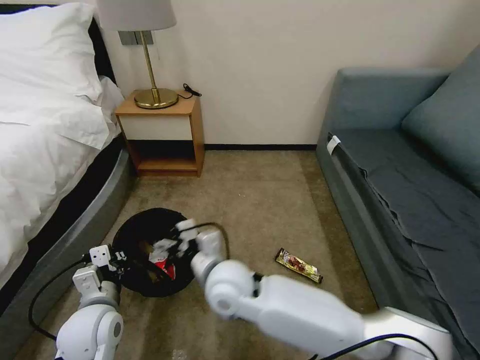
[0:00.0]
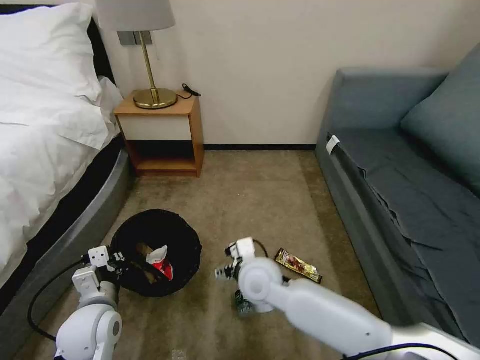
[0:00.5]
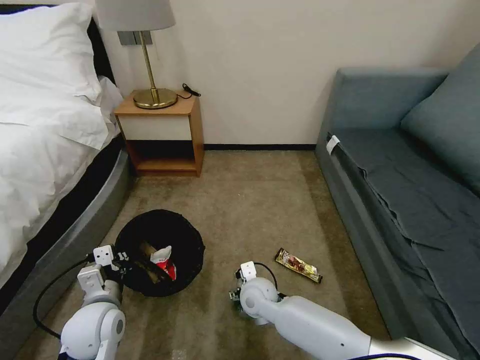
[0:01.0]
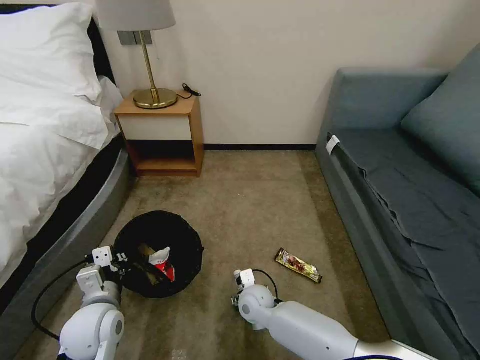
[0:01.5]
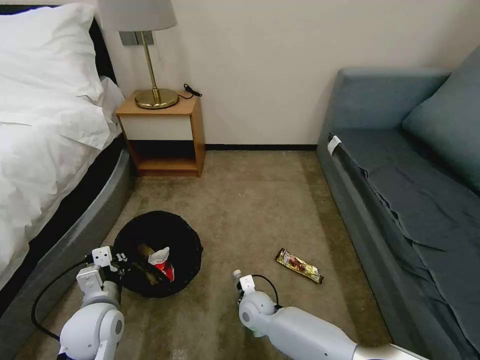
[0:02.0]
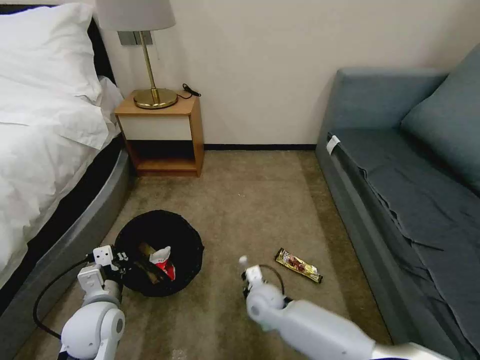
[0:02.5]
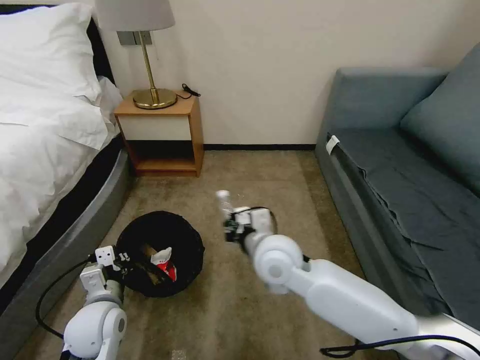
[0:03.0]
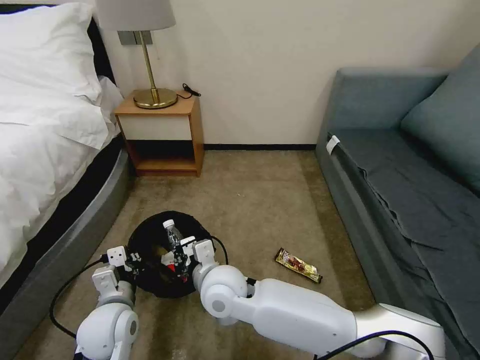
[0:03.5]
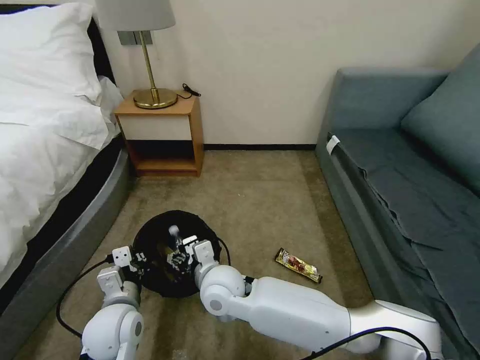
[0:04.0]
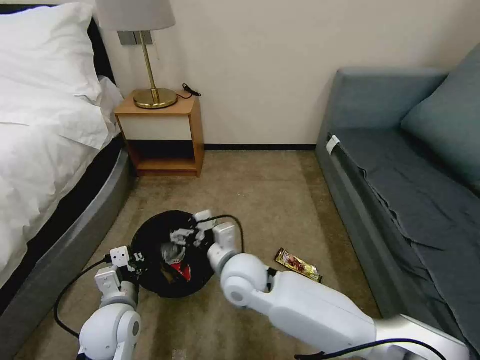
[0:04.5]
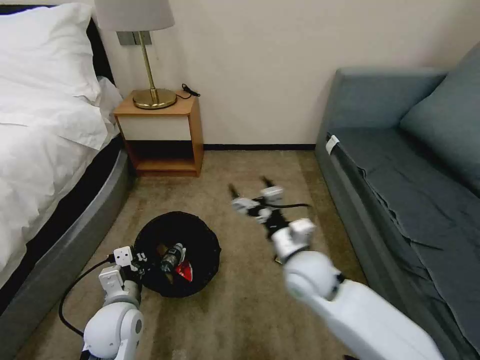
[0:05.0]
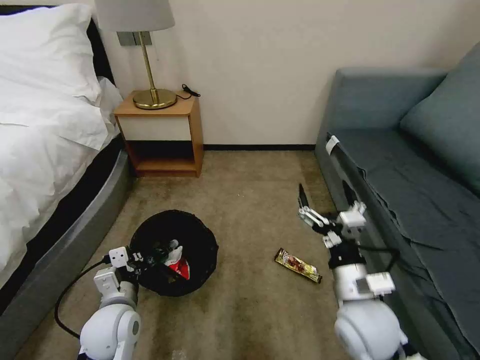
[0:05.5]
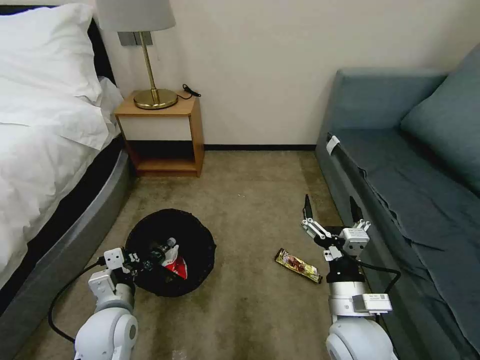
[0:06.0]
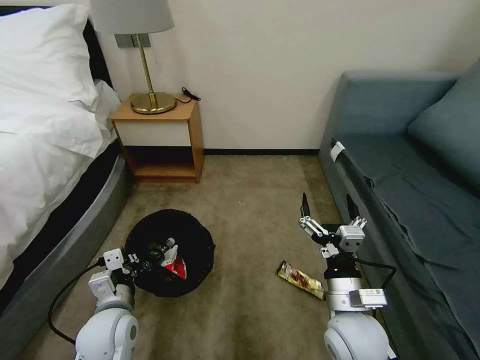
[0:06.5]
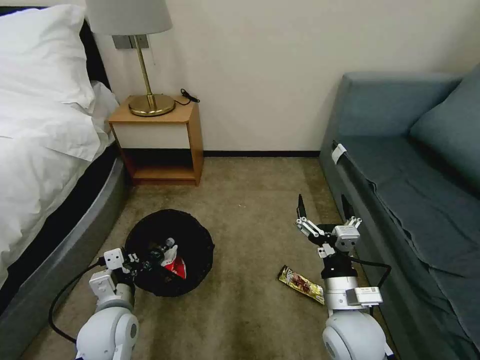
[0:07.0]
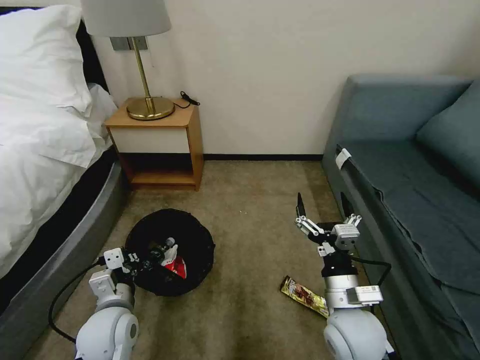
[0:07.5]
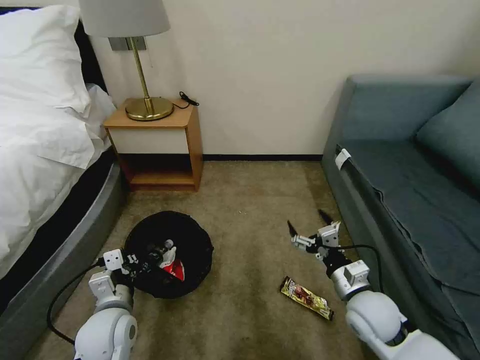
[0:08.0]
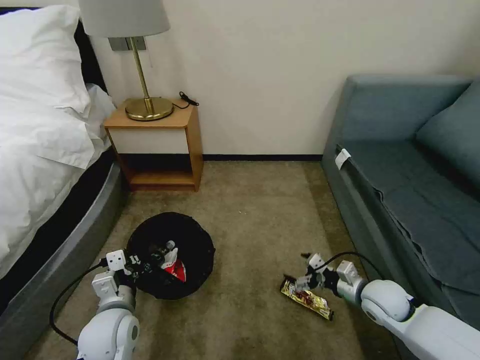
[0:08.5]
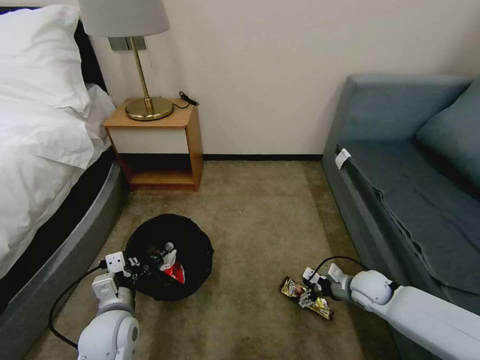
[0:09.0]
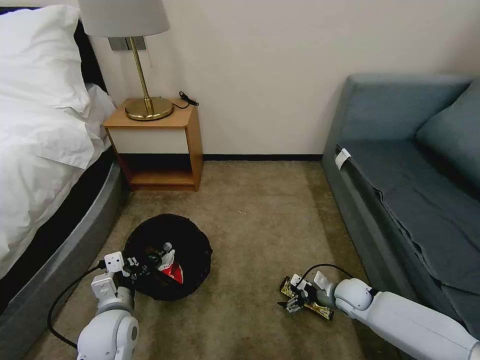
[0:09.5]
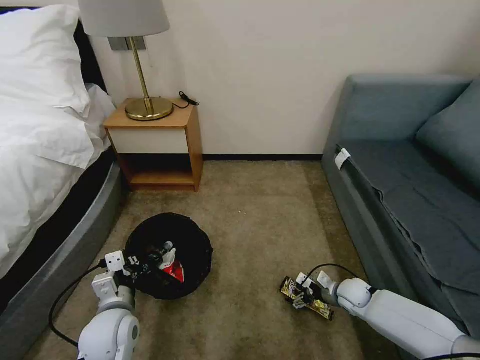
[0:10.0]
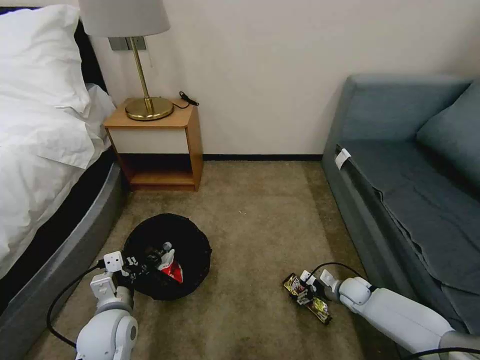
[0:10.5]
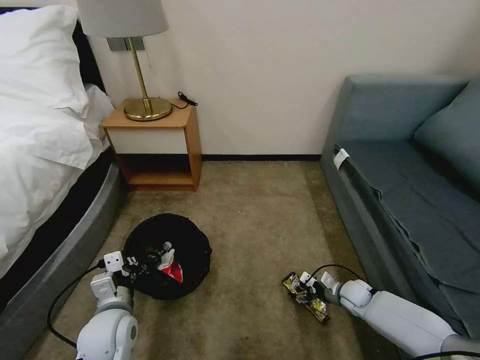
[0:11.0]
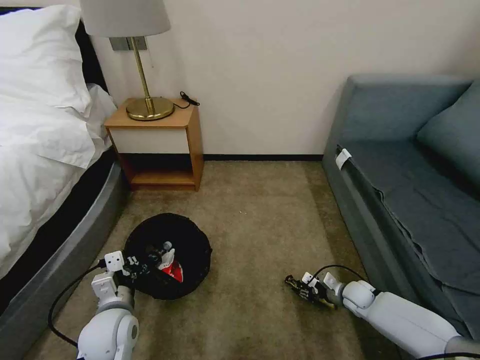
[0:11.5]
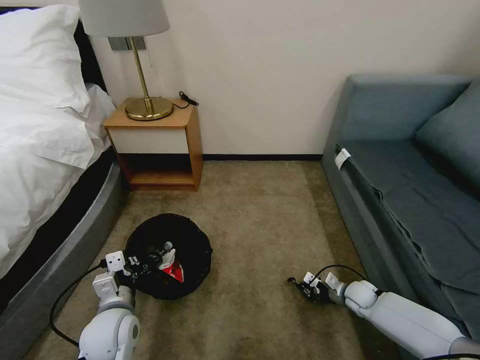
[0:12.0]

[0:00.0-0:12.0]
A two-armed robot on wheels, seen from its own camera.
Task of the whole recording: Pick up the trash bin, then pick up the garbage on the floor and place it into the trash bin.
0:00.0 to 0:02.0: The right gripper shifts some 20 cm downward.
0:02.0 to 0:04.0: The right gripper travels upward and to the left by approximately 20 cm, and closes, then opens again.
0:04.0 to 0:06.0: The right gripper moves to the right and backward, some 25 cm.
0:06.0 to 0:08.0: The right gripper moves to the right, forward and downward, some 10 cm.
0:08.0 to 0:10.0: The right gripper shifts approximately 20 cm downward, forward and to the right.
0:10.0 to 0:12.0: The right gripper closes.

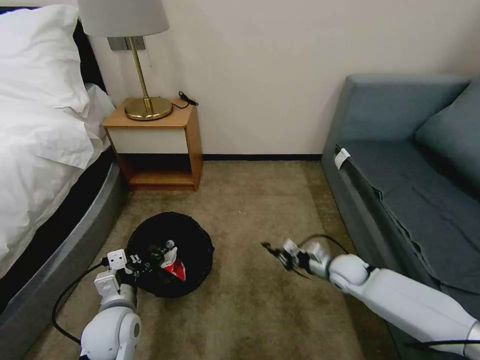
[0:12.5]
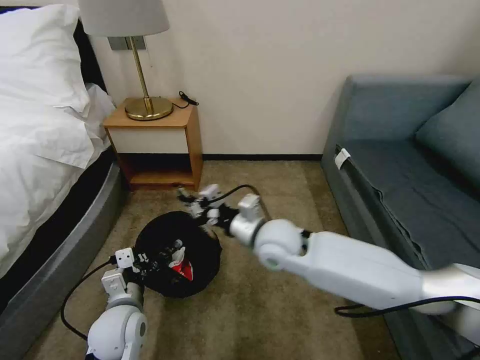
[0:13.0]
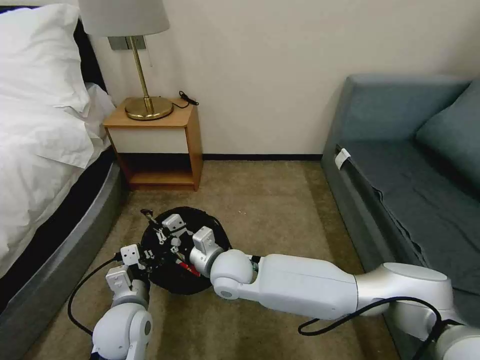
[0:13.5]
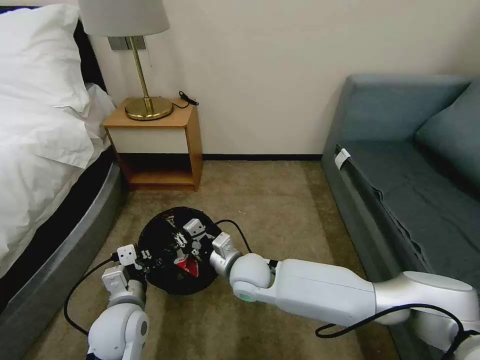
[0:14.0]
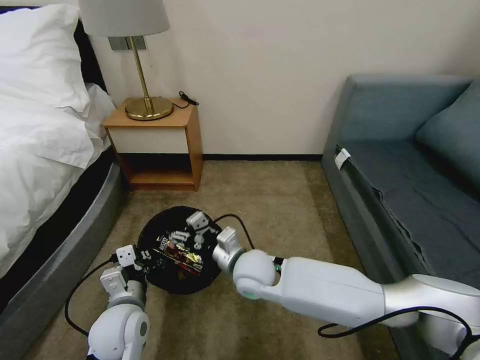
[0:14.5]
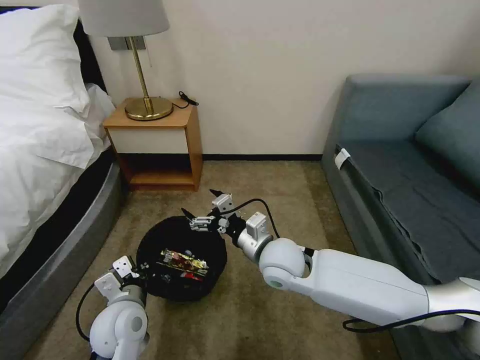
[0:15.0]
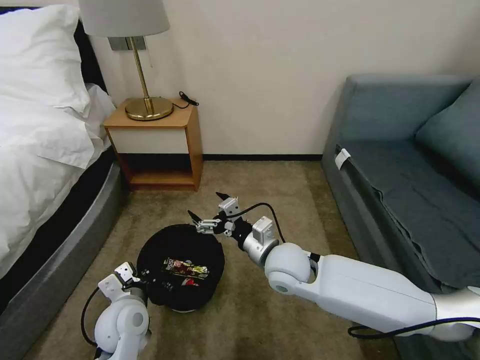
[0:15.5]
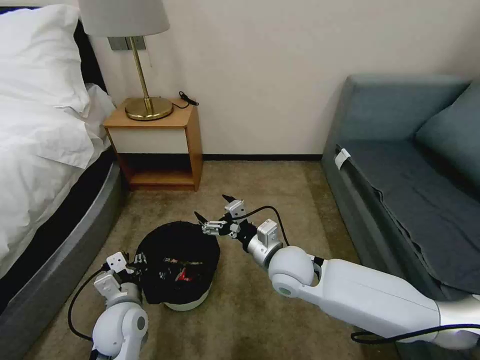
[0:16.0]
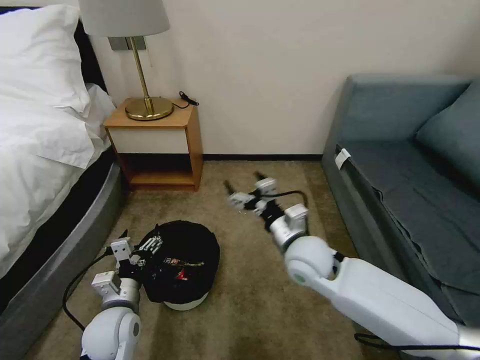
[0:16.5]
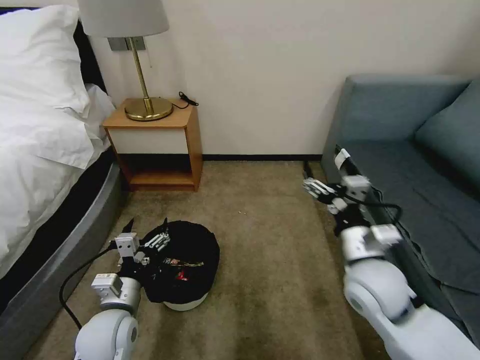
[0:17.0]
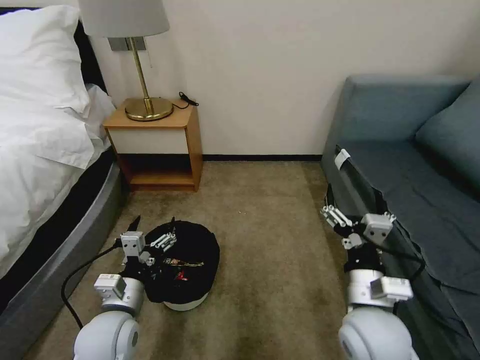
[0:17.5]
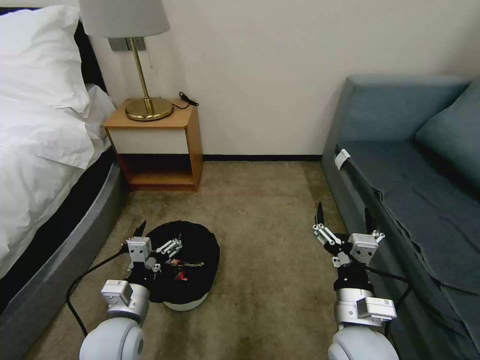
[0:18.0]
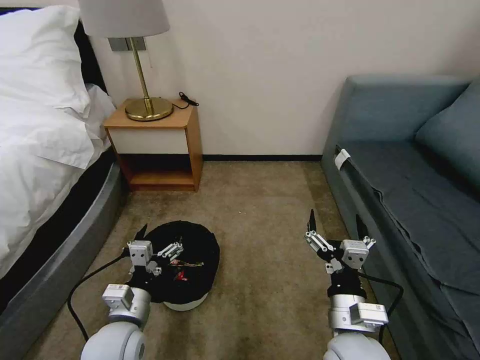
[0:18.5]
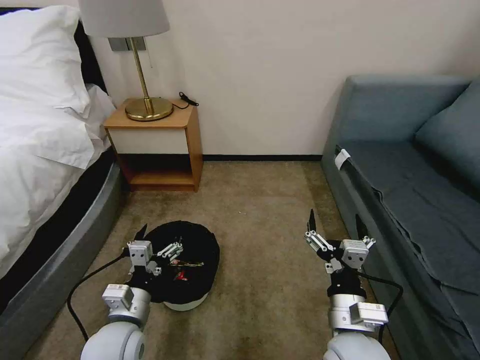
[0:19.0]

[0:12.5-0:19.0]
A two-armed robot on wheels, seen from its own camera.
Task of the whole recording: Pick up the trash bin, then pick up the garbage on the floor and place it into the trash bin.
0:12.5 to 0:14.5: The right gripper heads to the left, covering approximately 25 cm, and opens up.
0:14.5 to 0:17.0: The left gripper opens up. The right gripper goes roughly 20 cm to the right and upward.
0:17.0 to 0:19.0: The right gripper shifts roughly 15 cm backward and downward.

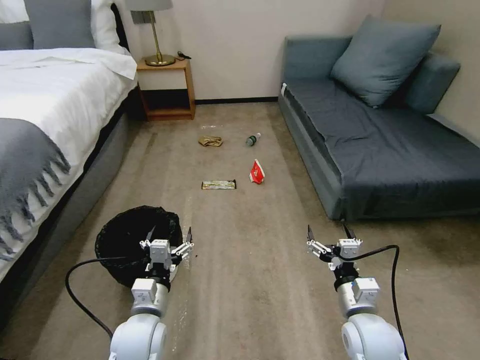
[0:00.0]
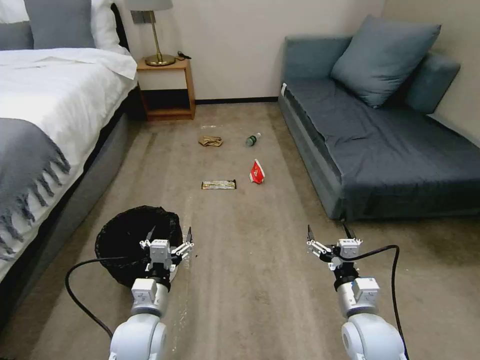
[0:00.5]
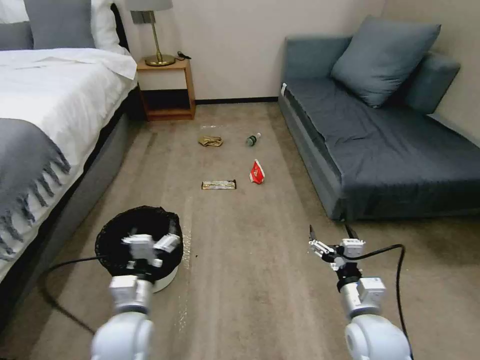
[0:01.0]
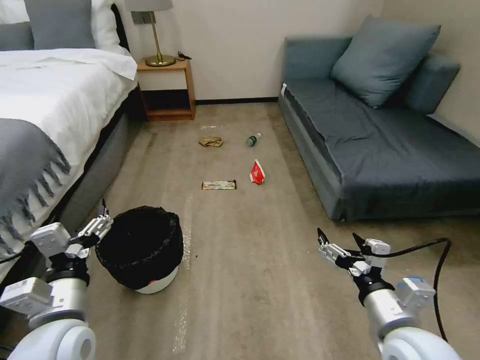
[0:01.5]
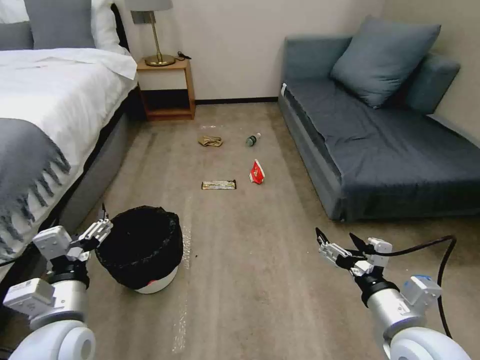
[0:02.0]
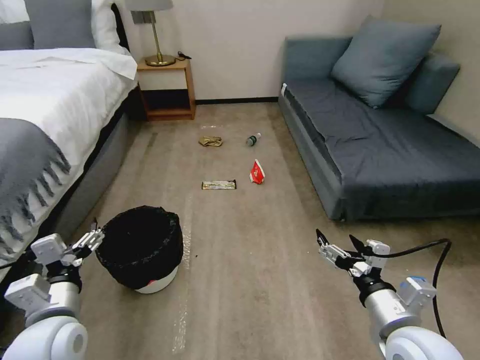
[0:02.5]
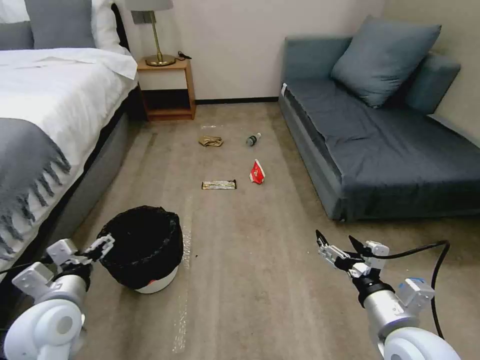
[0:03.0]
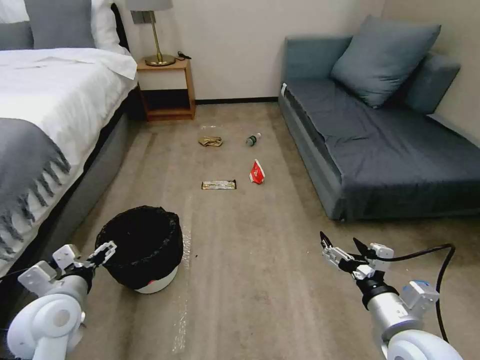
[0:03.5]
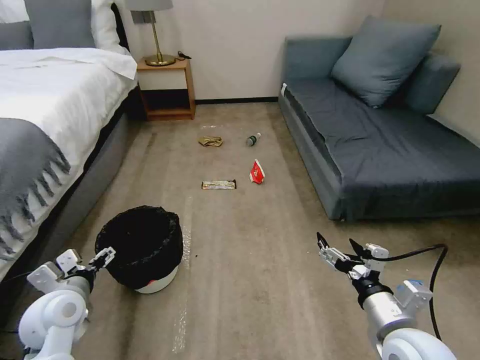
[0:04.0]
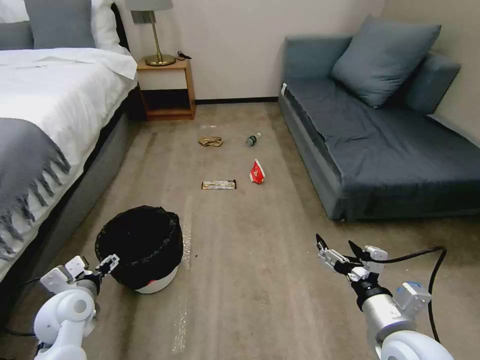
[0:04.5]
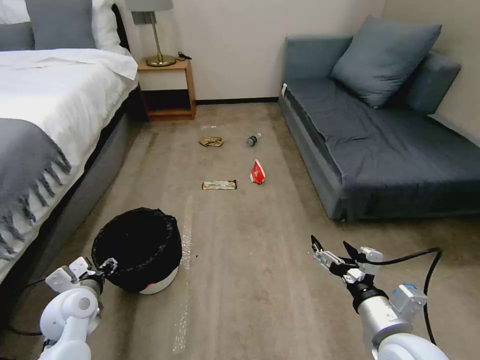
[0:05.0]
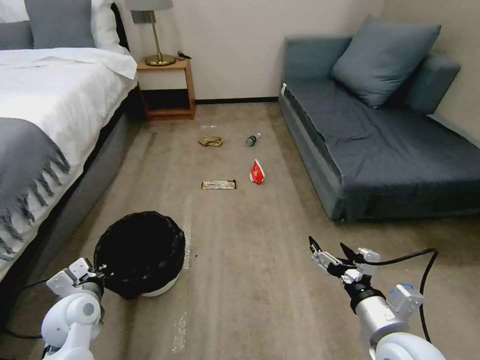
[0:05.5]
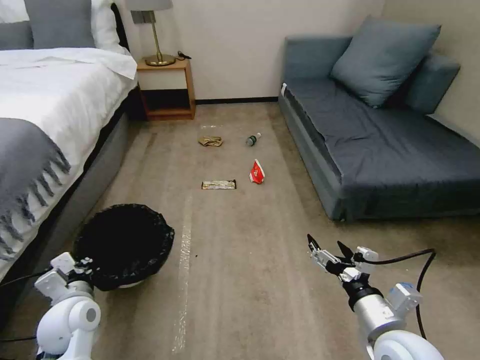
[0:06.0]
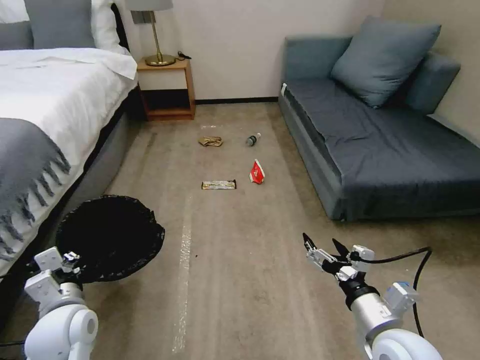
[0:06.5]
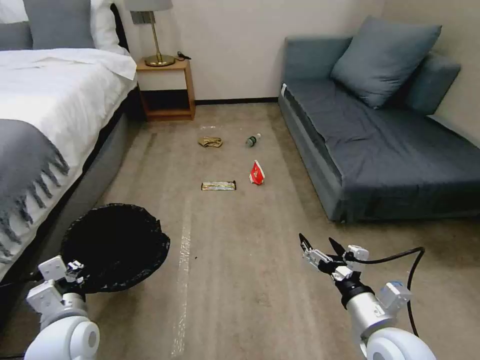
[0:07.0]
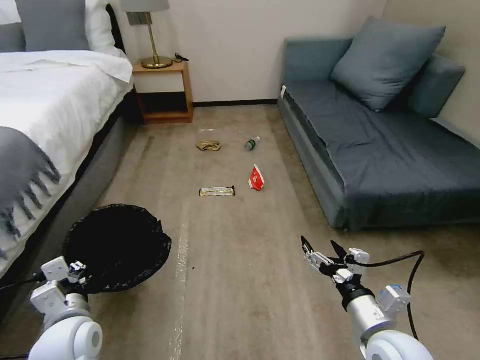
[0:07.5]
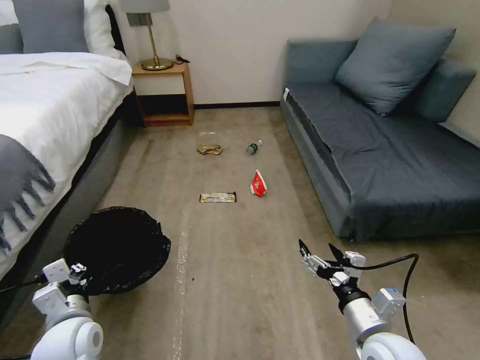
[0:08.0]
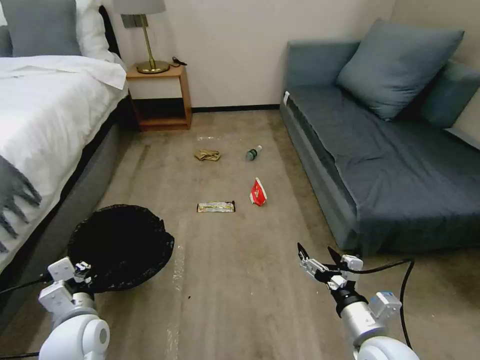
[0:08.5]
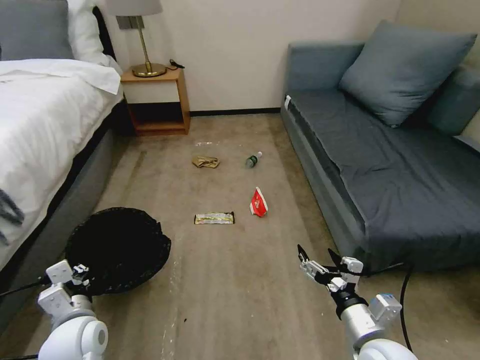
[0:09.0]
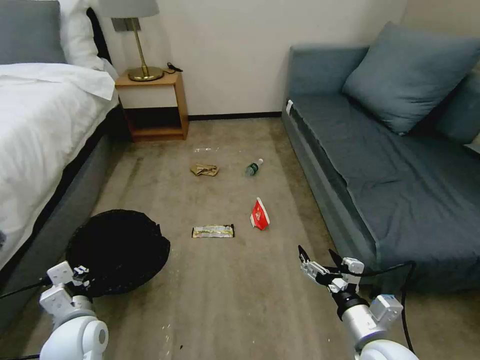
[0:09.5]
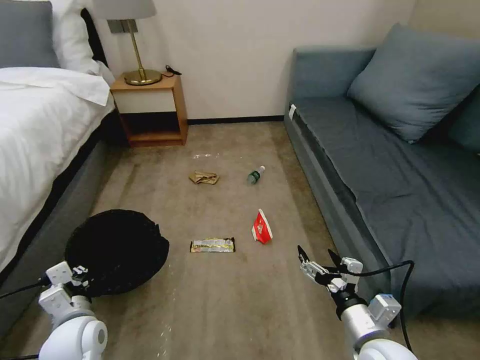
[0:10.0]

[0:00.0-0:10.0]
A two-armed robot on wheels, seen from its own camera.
Task of the whole recording: Pick up the trash bin, then pick up the garbage on the floor and place it into the trash bin.
0:02.0 to 0:04.0: The left gripper goes roughly 10 cm to the left, forward and downward.
0:04.0 to 0:06.0: The left gripper closes its fingers.
